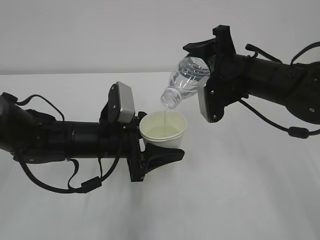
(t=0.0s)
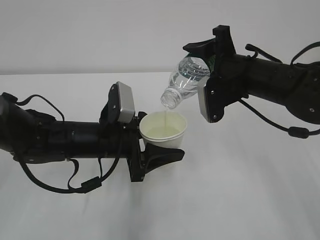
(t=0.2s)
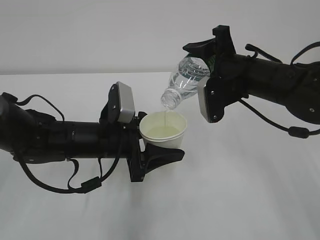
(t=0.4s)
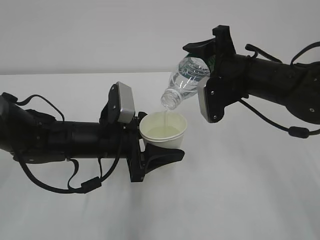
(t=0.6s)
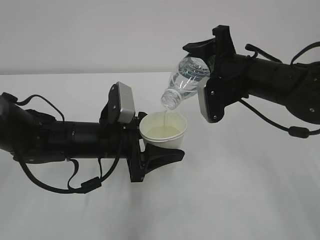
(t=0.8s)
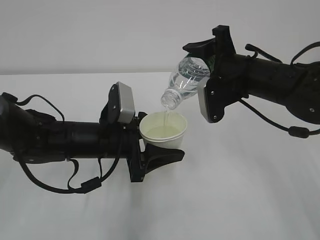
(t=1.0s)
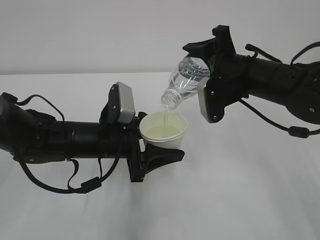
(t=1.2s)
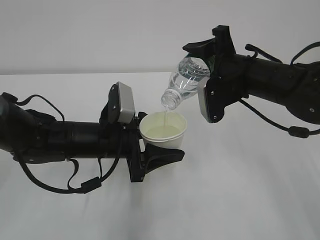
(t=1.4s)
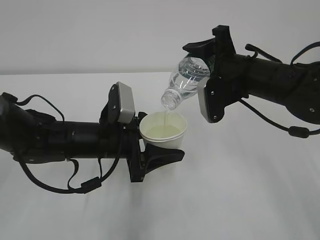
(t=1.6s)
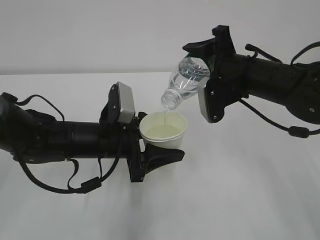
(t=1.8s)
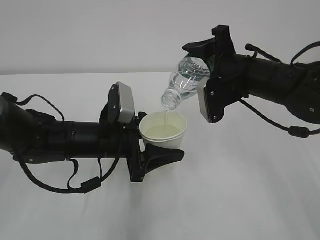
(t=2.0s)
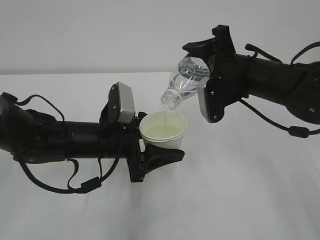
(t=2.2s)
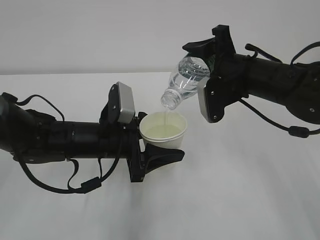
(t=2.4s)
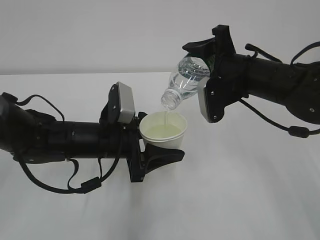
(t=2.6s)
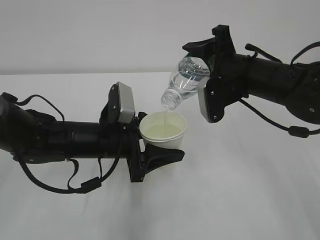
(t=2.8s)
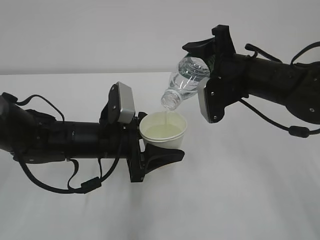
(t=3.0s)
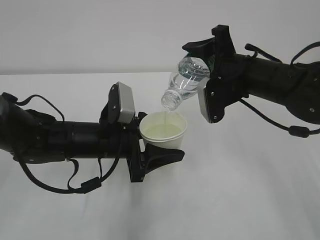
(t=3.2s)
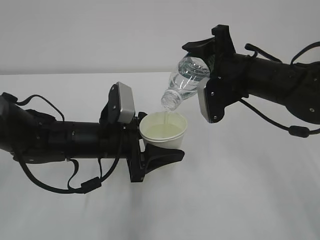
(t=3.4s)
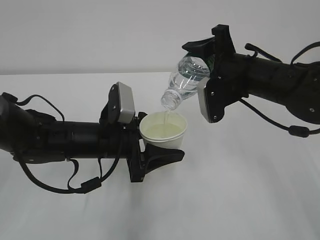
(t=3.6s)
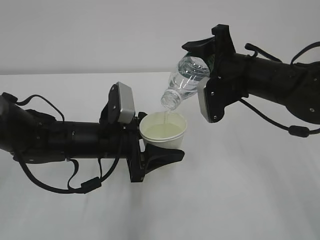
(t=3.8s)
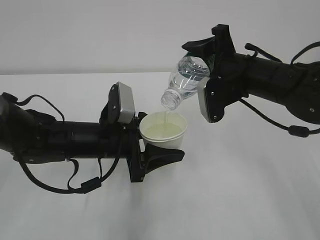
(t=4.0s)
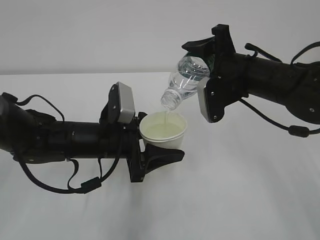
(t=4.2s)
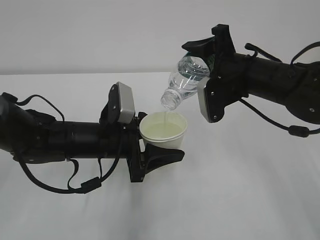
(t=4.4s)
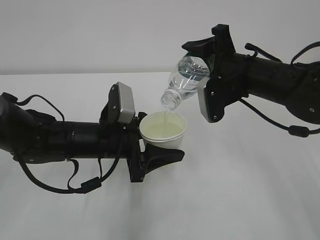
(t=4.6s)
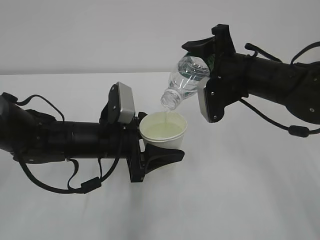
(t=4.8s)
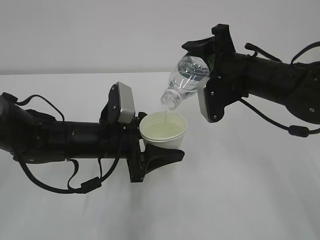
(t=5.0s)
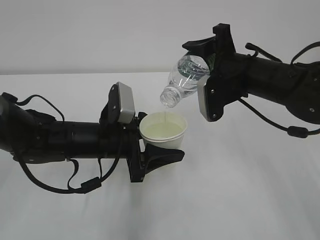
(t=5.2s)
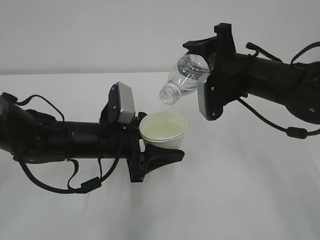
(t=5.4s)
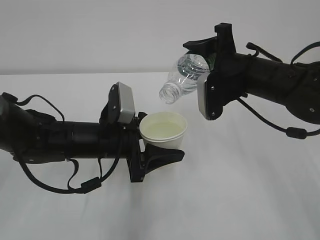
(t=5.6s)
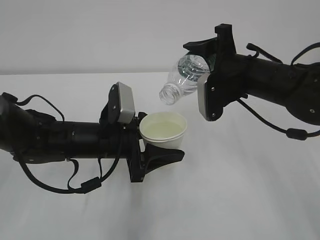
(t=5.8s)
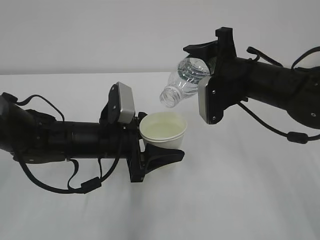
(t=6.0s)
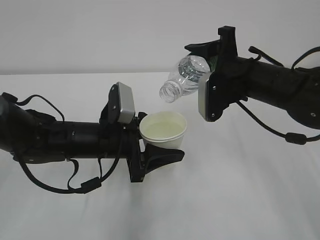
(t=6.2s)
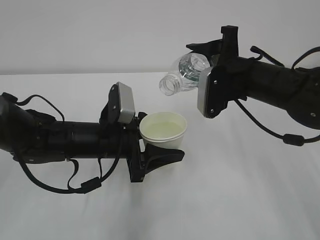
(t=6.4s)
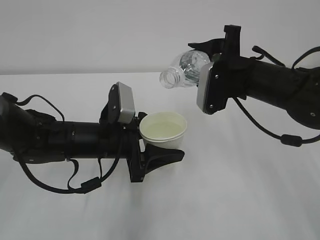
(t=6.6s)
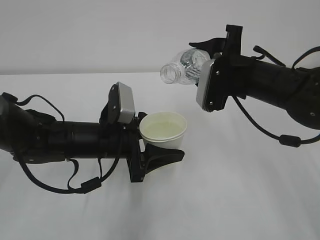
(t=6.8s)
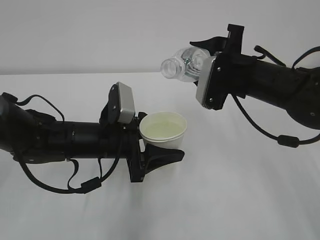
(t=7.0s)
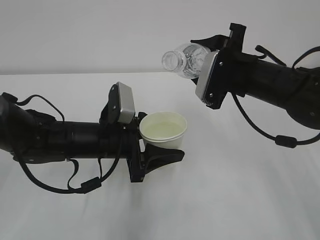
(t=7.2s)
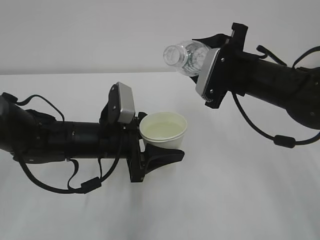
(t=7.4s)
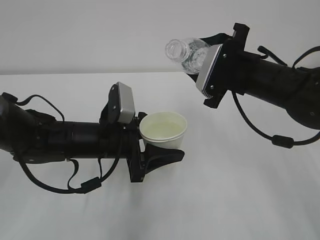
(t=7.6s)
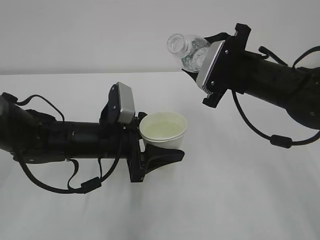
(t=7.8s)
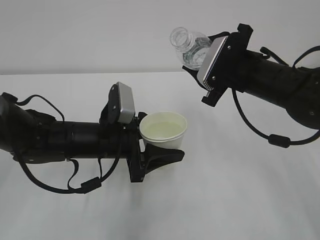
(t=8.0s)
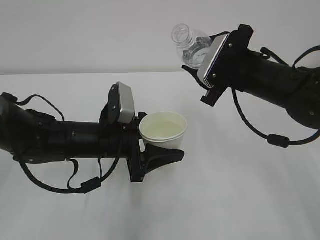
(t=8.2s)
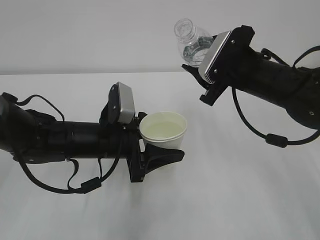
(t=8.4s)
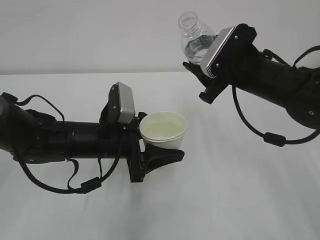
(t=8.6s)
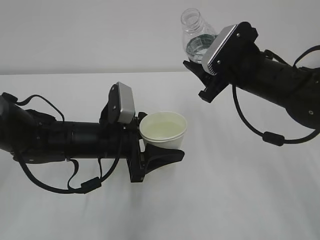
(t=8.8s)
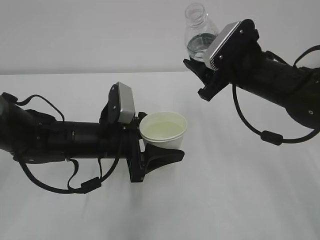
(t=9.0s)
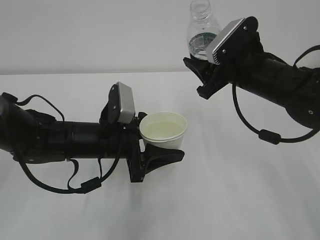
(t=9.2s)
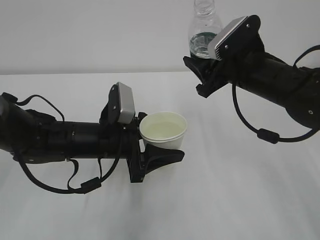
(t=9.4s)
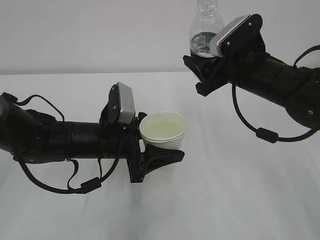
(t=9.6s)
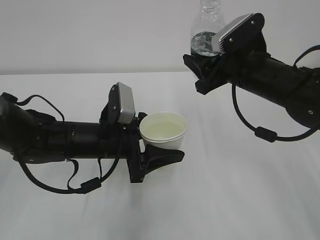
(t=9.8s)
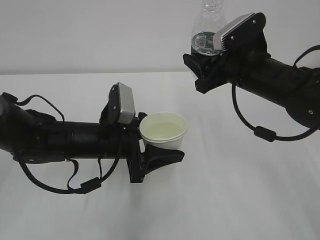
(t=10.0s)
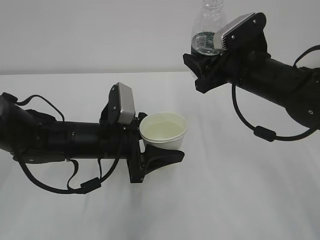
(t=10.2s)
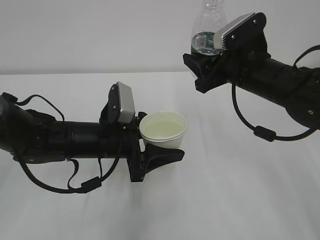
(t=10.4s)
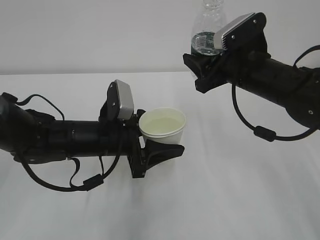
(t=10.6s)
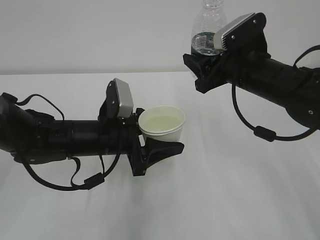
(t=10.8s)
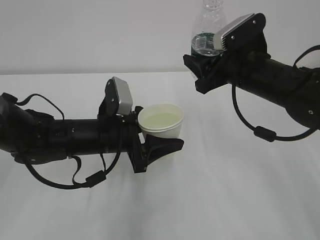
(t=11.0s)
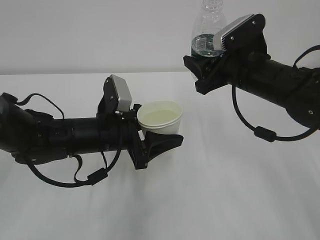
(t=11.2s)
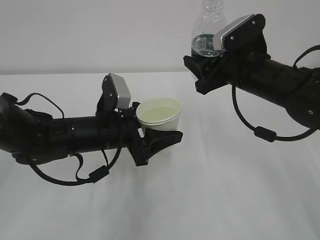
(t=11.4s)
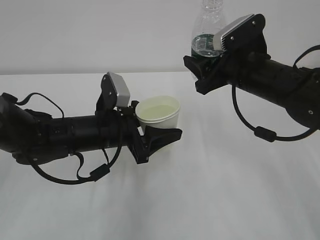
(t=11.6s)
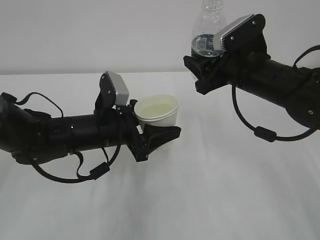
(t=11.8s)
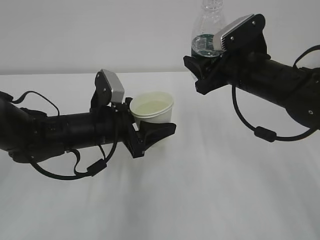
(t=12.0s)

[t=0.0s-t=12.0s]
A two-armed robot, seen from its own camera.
t=0.0s to t=4.4s: Both grippers stay put.
t=4.4s to t=6.0s: The grippers move only a little.
t=9.0s to t=12.0s: The grippers stay close to where they were, moving slightly.

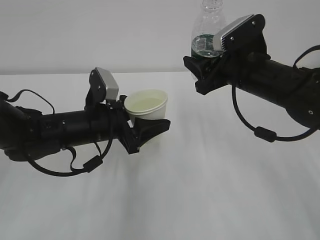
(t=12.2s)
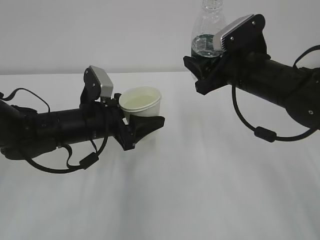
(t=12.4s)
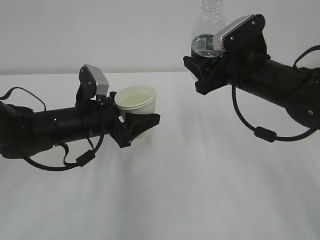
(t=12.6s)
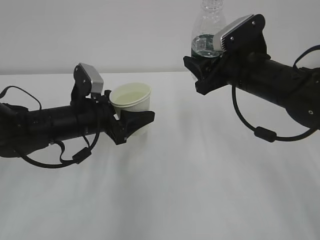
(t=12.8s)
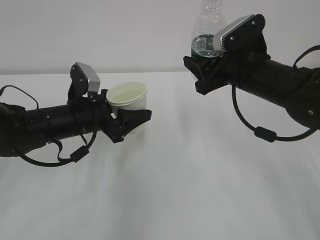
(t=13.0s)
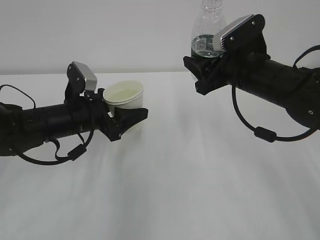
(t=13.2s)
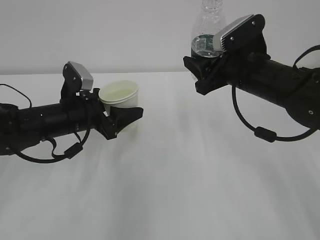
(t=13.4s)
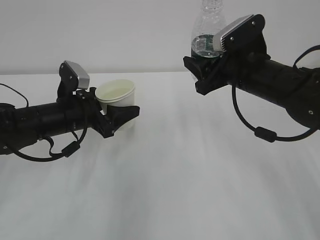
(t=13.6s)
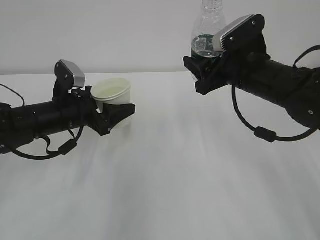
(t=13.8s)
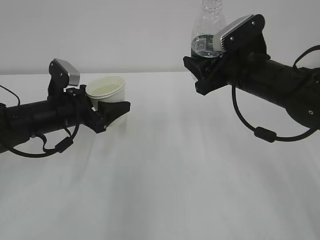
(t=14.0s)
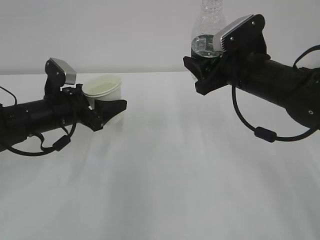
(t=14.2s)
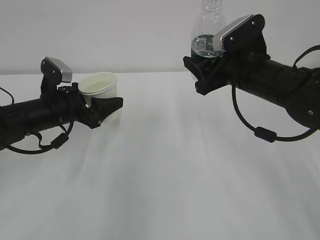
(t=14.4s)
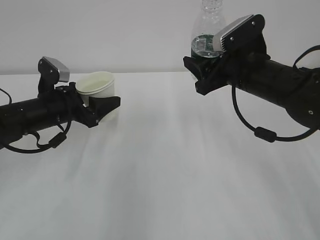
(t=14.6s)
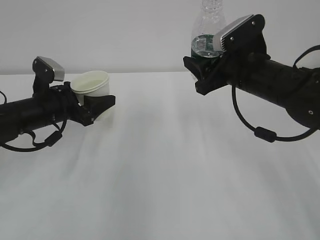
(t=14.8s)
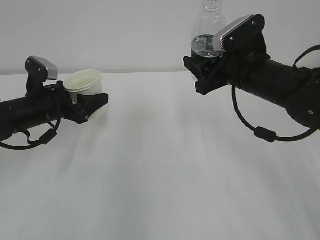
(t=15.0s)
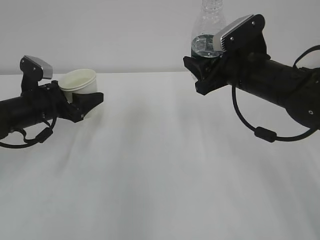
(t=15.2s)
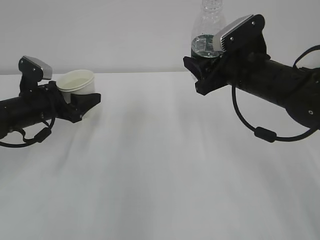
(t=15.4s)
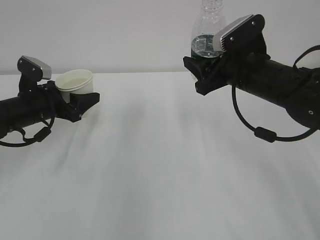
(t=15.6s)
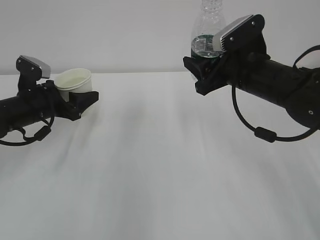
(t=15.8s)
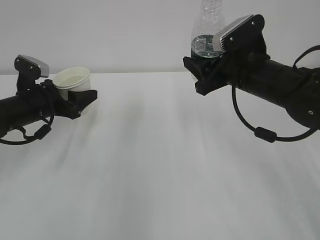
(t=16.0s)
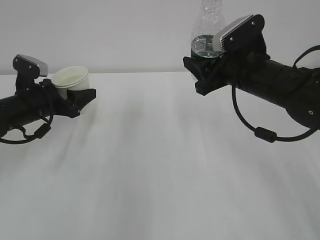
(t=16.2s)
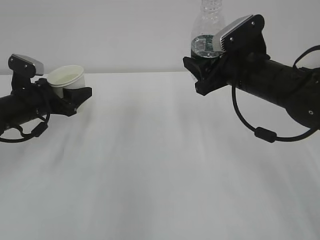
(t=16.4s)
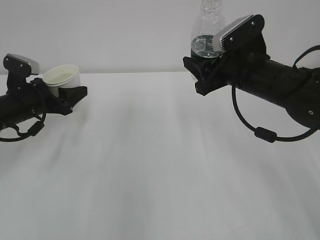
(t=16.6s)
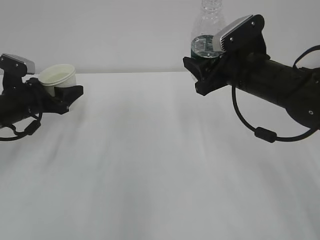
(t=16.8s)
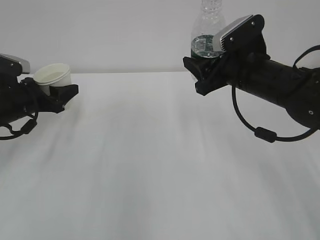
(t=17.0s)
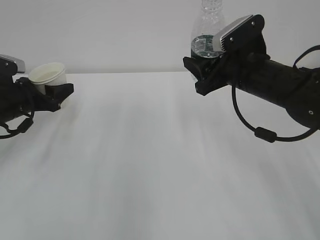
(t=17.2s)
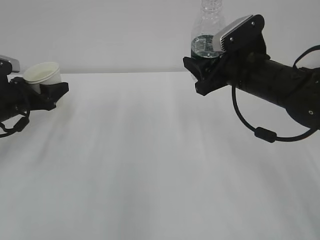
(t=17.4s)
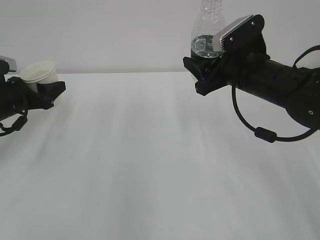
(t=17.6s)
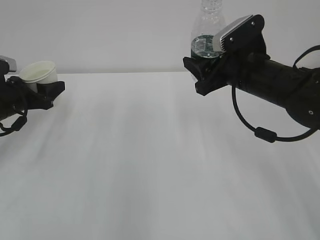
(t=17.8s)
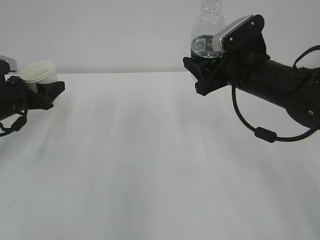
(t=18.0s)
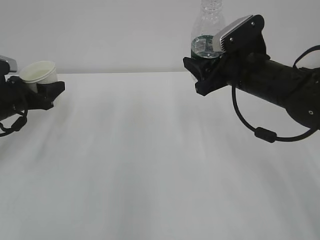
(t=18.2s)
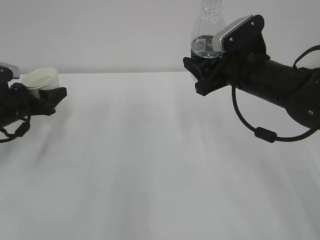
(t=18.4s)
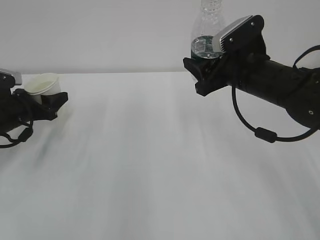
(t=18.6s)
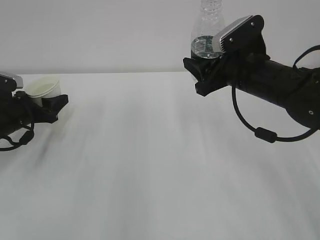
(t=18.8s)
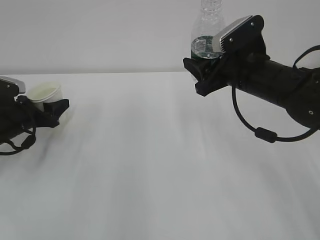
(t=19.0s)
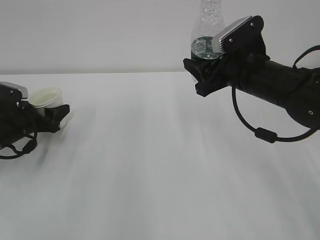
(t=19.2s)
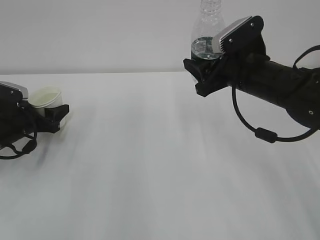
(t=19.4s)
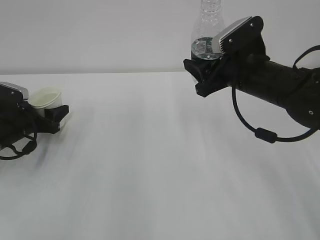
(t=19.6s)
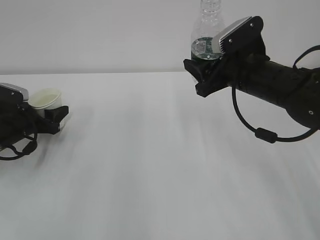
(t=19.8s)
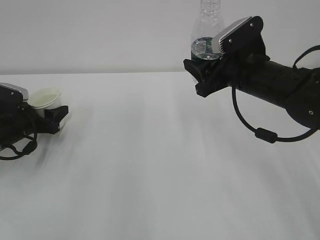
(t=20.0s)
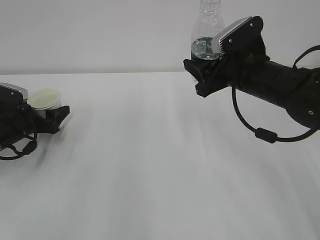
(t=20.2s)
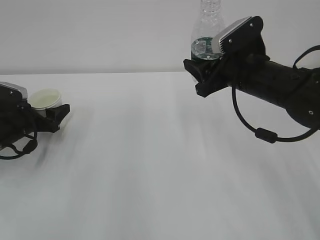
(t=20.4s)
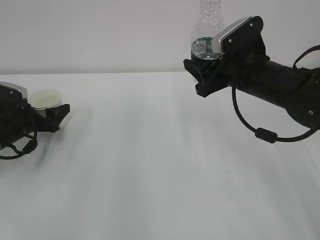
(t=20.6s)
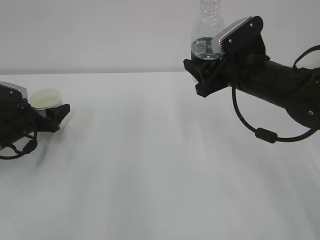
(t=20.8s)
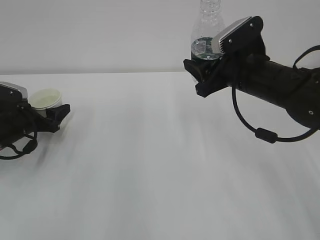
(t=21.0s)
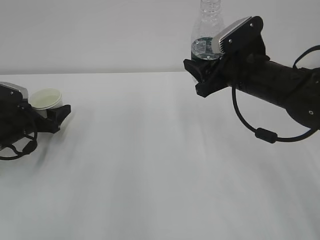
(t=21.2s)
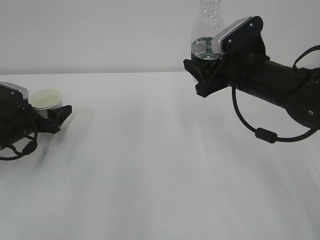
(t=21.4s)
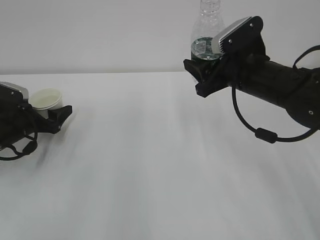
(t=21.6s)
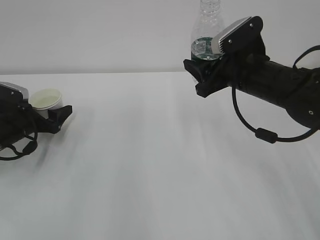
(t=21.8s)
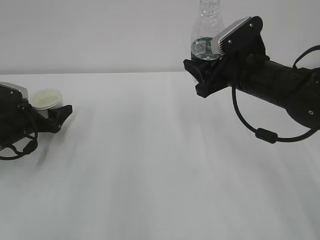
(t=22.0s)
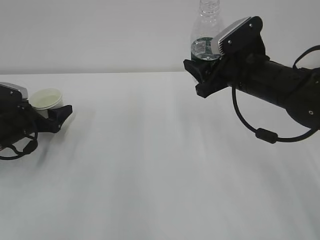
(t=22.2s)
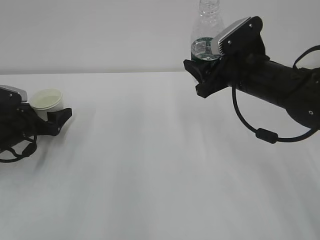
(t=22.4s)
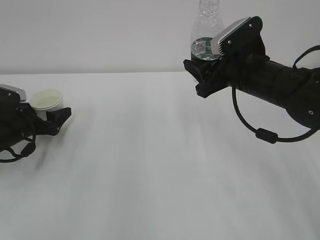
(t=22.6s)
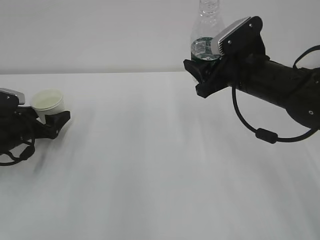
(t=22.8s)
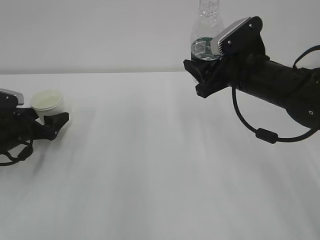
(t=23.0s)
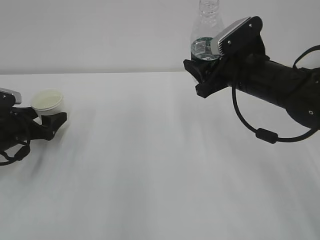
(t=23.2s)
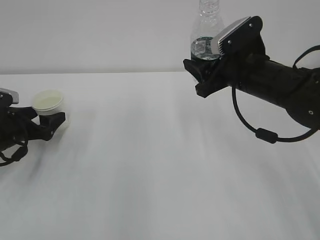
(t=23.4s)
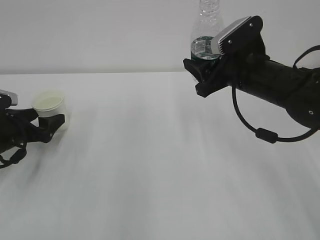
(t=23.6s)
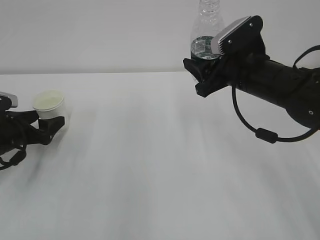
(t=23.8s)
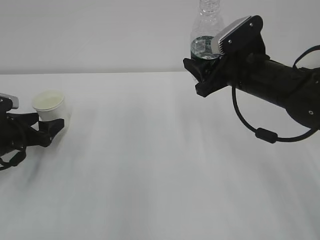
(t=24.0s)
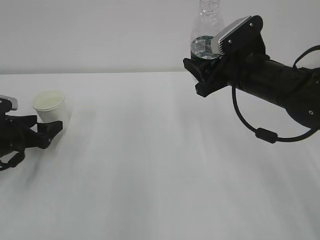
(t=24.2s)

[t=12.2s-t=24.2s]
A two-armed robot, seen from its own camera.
t=12.2s to t=13.8s: The left gripper heads to the left, covering approximately 5 cm.
t=13.8s to t=15.2s: The left gripper goes about 5 cm to the left.
t=15.2s to t=16.6s: The grippers make only small movements.
t=16.6s to t=18.2s: The grippers stay close to where they were, moving slightly.
t=18.2s to t=19.8s: The left gripper goes approximately 5 cm downward.
t=21.2s to t=22.6s: Both grippers stay put.
t=22.6s to t=24.2s: There are only small adjustments of the grippers.
